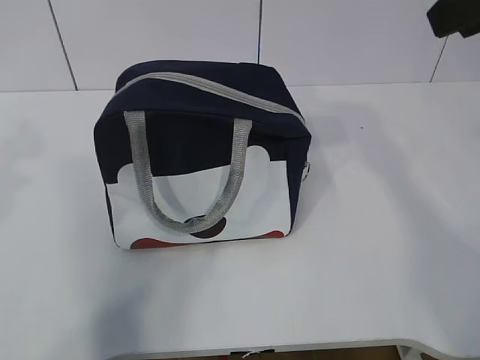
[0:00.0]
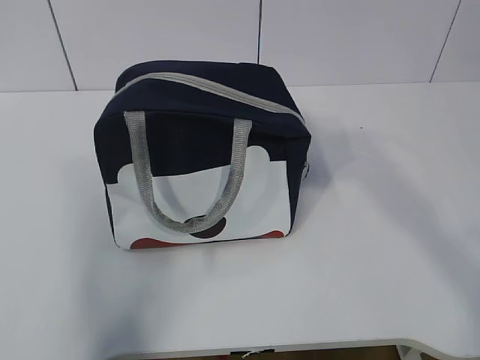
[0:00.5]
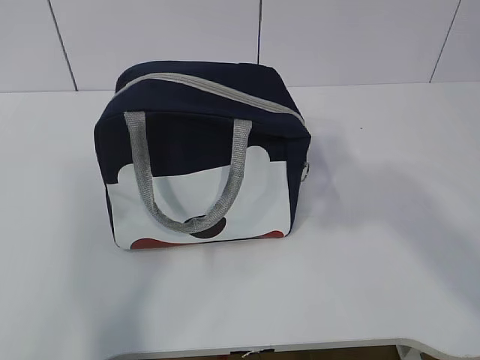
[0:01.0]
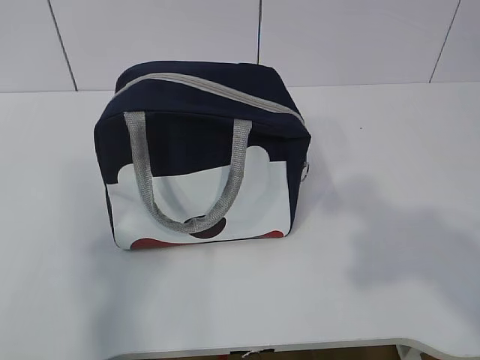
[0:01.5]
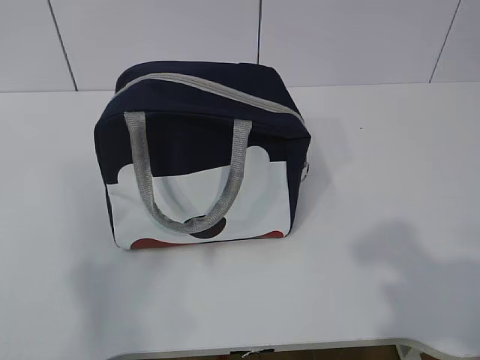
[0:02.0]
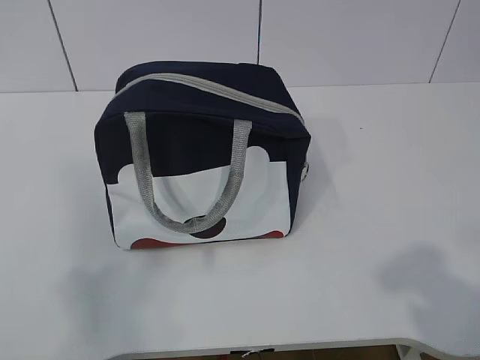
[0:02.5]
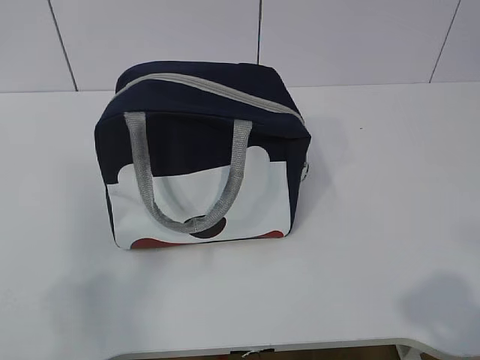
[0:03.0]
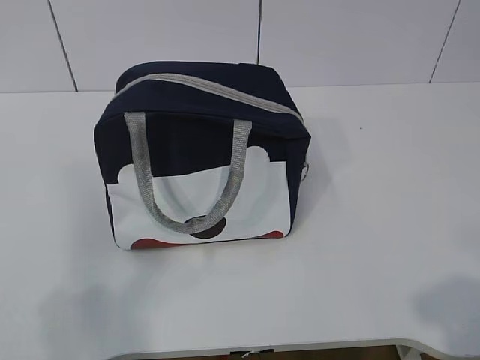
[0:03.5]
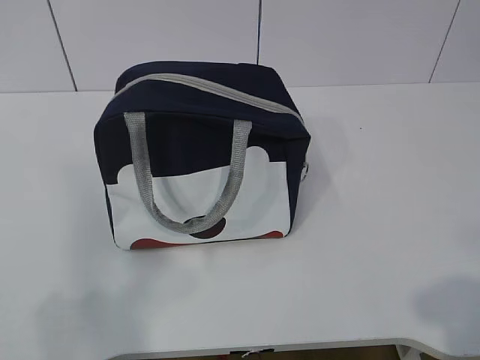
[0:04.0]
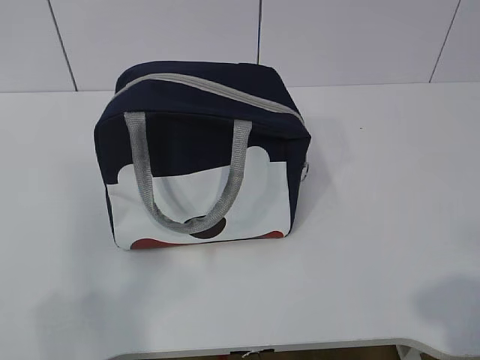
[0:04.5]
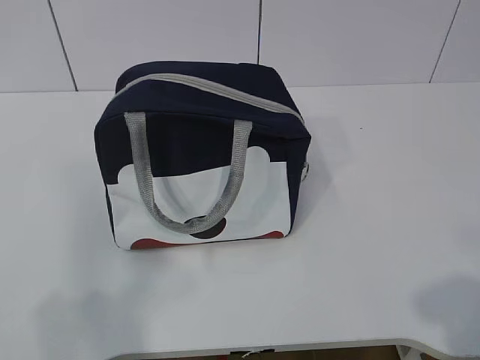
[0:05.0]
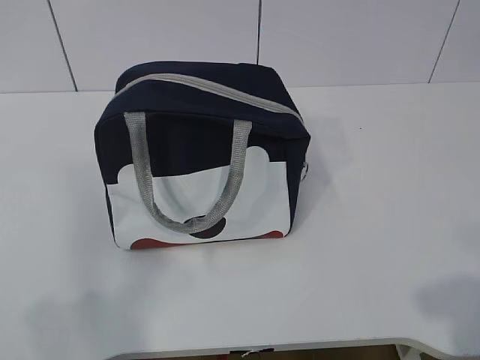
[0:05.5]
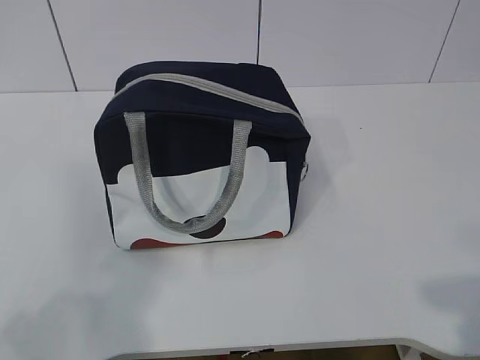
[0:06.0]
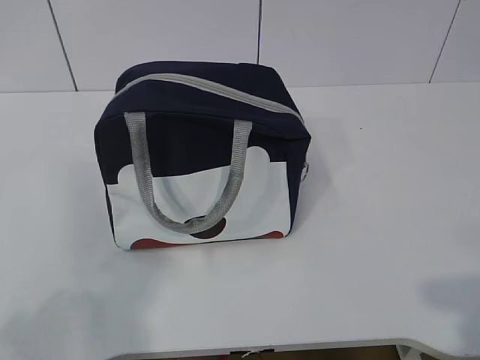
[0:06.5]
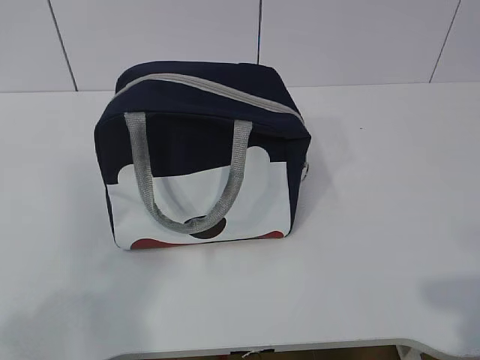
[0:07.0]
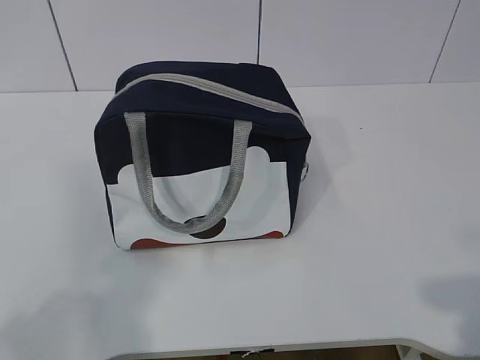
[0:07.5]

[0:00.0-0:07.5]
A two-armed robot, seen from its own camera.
0:00.0 to 0:02.0: The right gripper is displaced backward and downward by about 25 cm; the left gripper is displaced backward and to the left by about 20 cm.
0:02.0 to 0:04.0: The right gripper goes roughly 5 cm downward.
